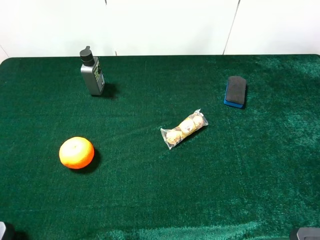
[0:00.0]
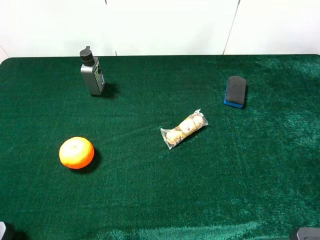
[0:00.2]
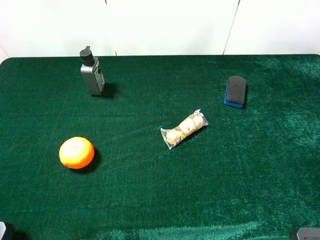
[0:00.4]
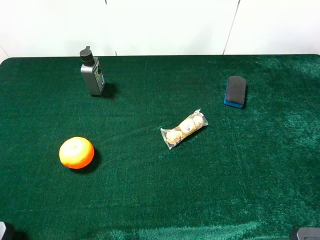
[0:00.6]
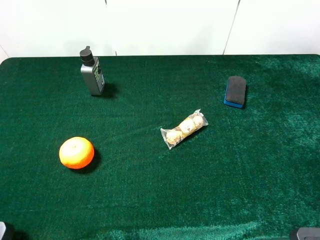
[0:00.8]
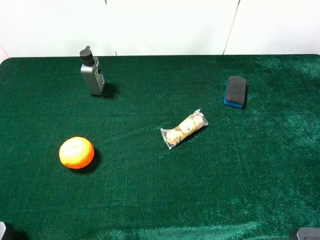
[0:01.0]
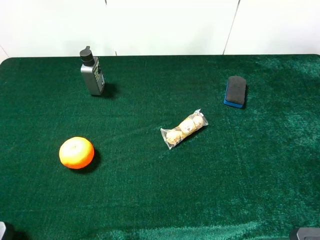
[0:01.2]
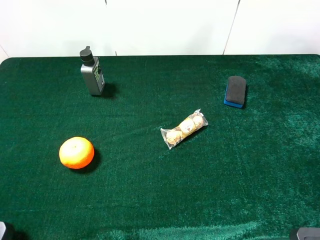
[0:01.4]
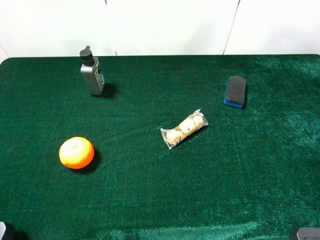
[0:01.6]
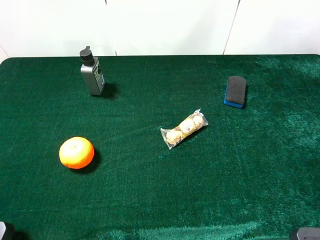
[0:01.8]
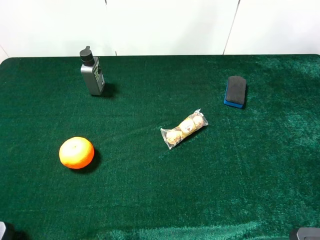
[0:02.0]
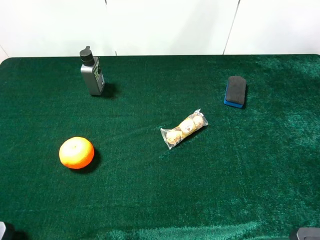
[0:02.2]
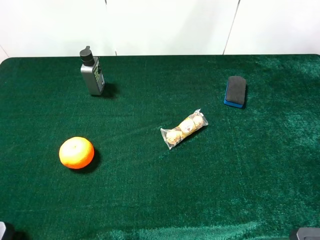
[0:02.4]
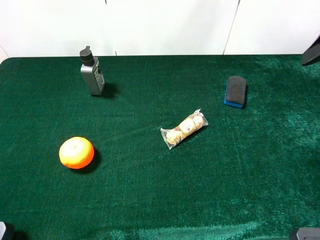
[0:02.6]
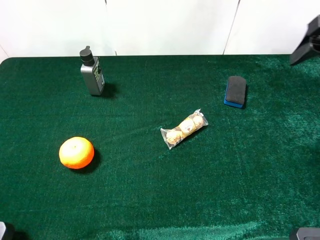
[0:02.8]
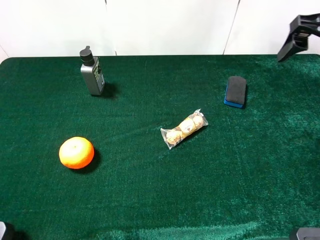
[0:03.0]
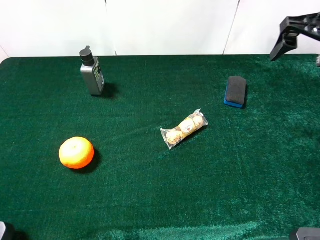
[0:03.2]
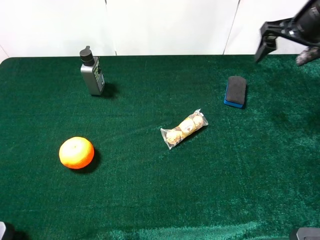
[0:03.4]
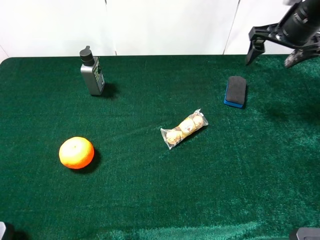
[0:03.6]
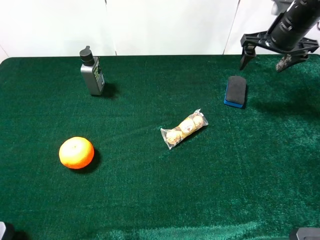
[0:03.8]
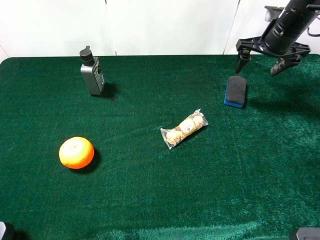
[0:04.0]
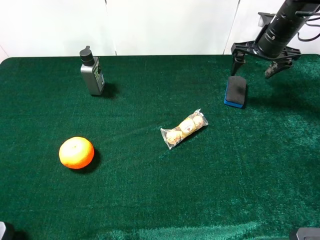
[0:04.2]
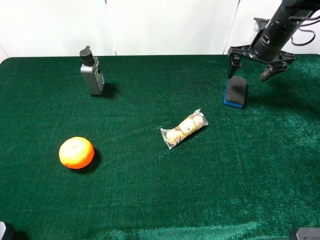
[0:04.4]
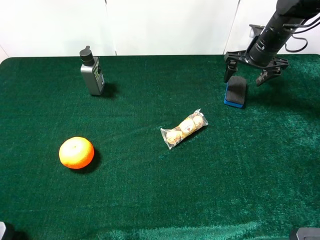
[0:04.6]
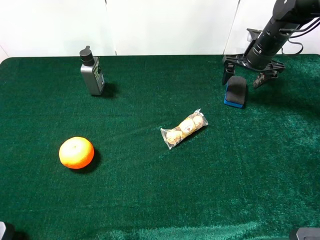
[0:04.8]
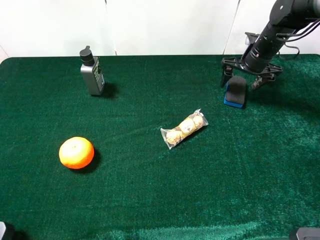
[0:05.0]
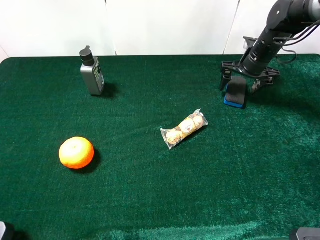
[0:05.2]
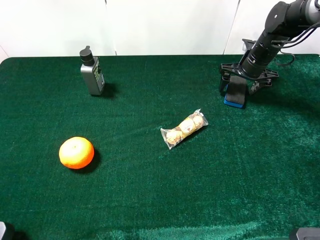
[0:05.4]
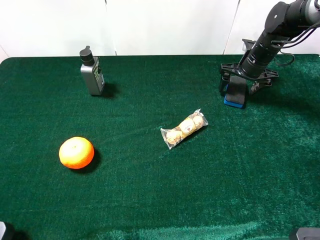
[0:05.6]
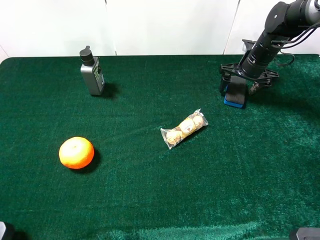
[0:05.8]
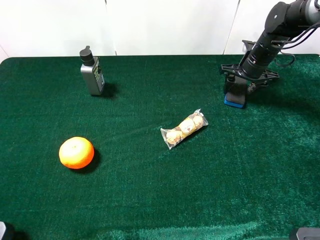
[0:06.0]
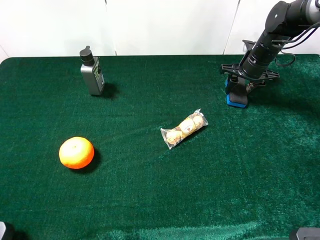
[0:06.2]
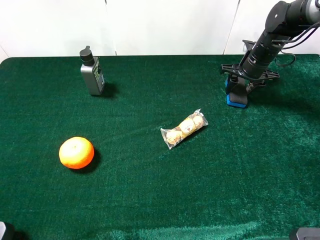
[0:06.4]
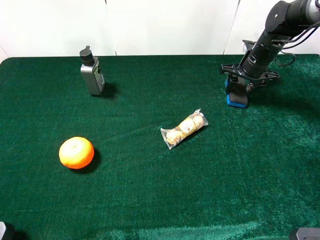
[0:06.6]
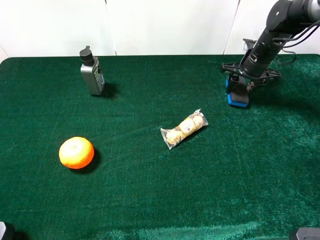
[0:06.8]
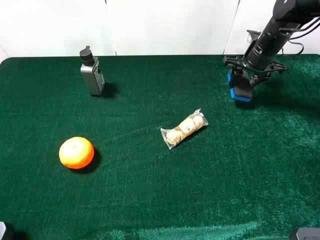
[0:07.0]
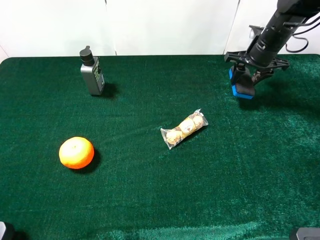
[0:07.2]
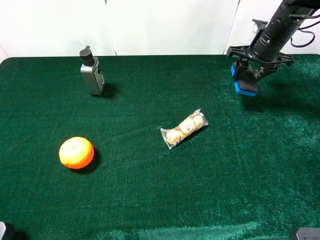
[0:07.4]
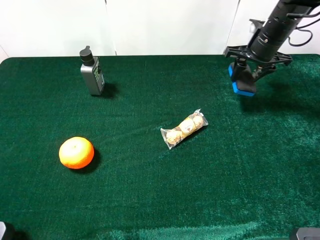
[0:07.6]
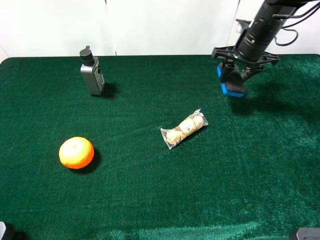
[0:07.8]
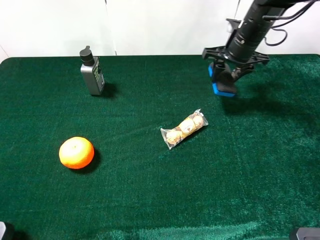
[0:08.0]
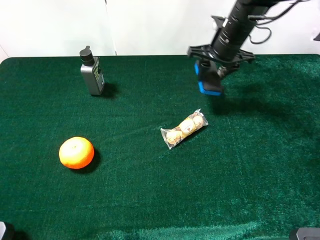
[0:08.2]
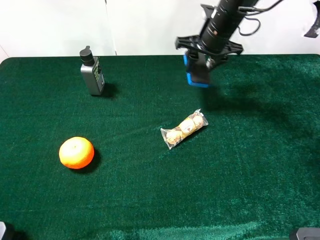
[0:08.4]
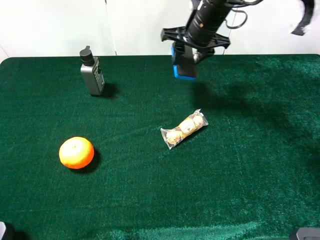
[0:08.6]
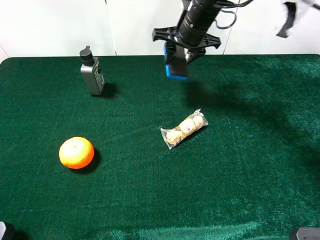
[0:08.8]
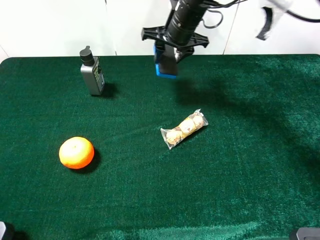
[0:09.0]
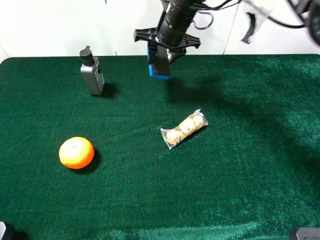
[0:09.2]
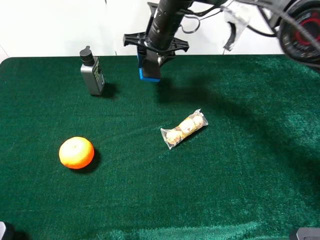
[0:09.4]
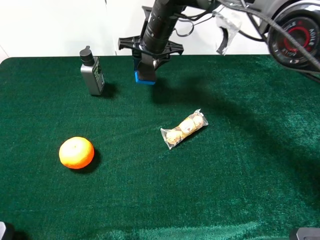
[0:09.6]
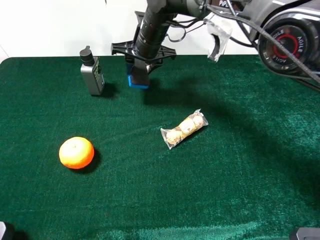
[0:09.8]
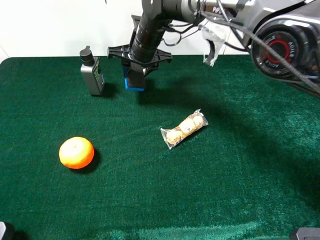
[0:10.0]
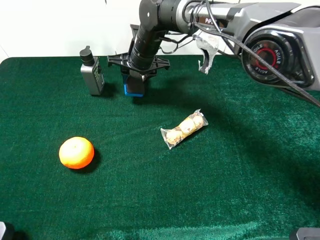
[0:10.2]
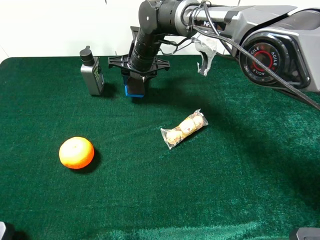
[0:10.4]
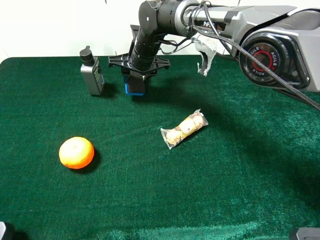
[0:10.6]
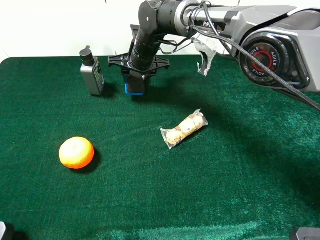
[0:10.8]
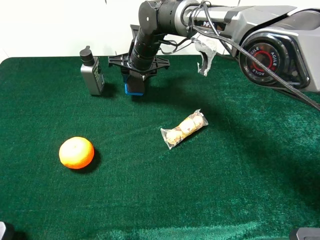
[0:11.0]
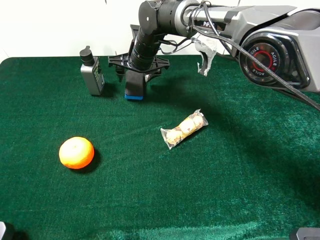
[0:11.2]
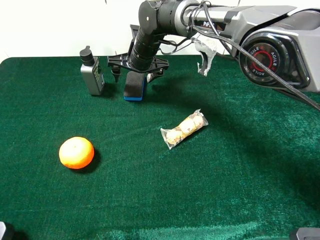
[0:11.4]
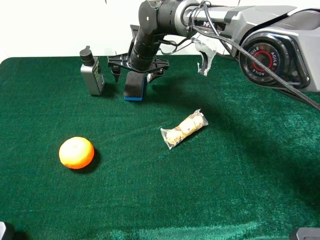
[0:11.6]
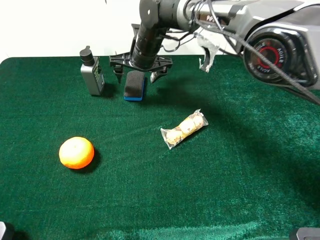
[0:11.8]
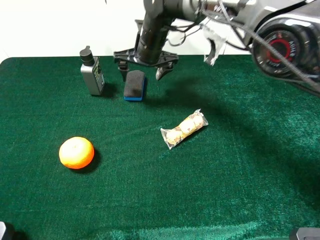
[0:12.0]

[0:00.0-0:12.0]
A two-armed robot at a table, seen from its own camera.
Task of the whole recording: the gripper move the object.
Step, 0:00.0 to 0:06.4: Grasp the blue blackboard earser with the right gripper.
Step, 0:06.6 to 0:12.0: Place the blue blackboard earser on the table with the right gripper.
0:01.6 to 0:03.0: The right gripper moves forward, some 25 cm.
0:03.0 to 0:04.4: The right gripper travels forward and downward by about 20 cm.
0:04.4 to 0:06.0: The right gripper moves downward, approximately 5 cm, and closes up.
0:06.0 to 0:07.6: The right gripper goes approximately 5 cm upward, and closes up.
0:07.6 to 0:09.0: The right gripper travels to the left by some 20 cm.
0:09.0 to 0:10.4: The right gripper travels to the left and downward by approximately 10 cm.
0:10.4 to 0:12.0: The right gripper opens up.

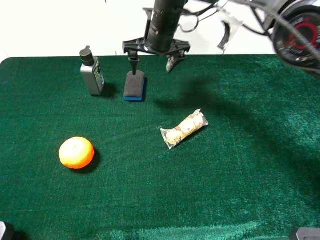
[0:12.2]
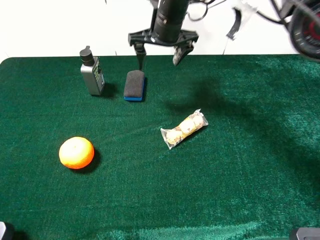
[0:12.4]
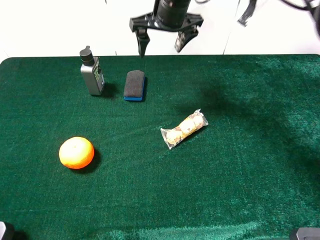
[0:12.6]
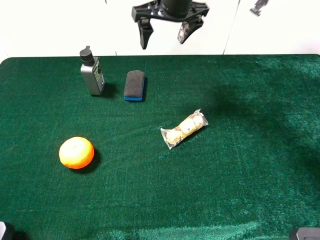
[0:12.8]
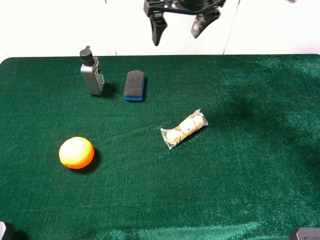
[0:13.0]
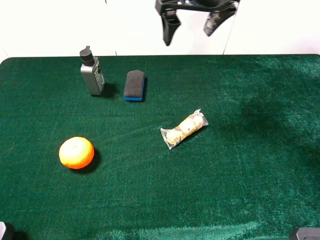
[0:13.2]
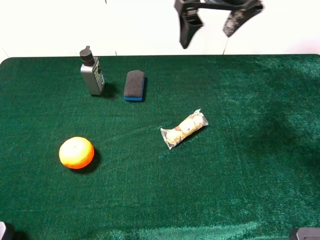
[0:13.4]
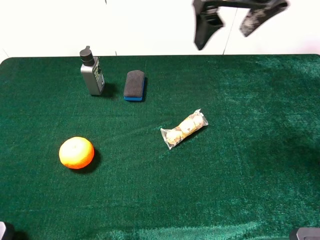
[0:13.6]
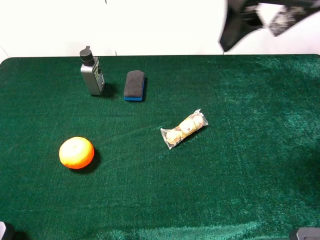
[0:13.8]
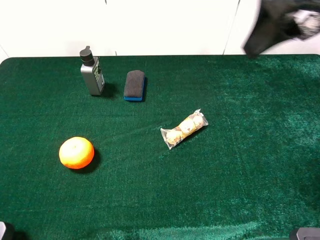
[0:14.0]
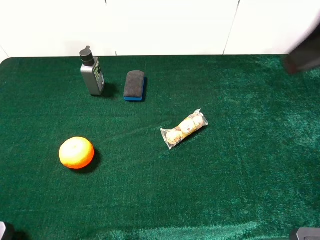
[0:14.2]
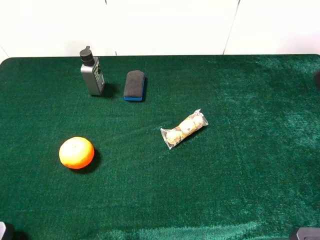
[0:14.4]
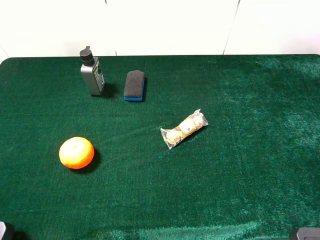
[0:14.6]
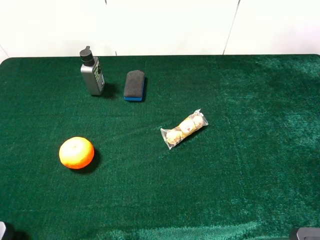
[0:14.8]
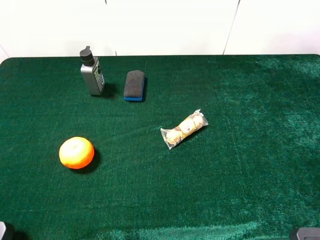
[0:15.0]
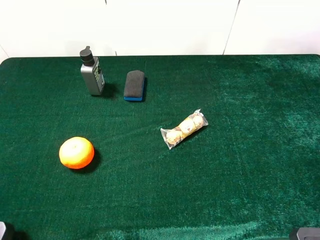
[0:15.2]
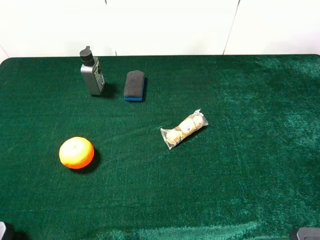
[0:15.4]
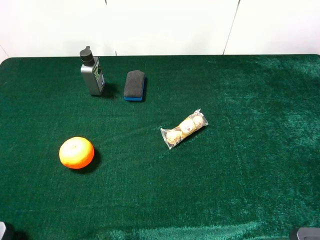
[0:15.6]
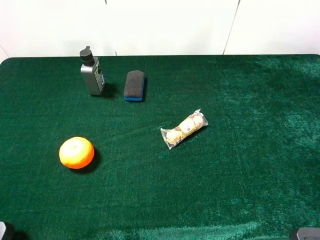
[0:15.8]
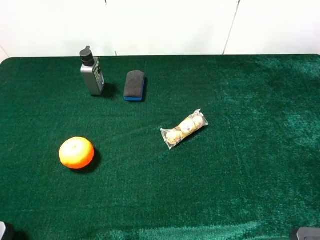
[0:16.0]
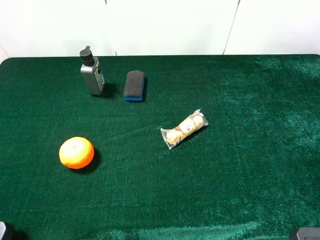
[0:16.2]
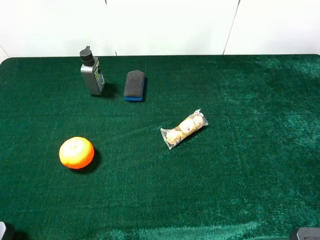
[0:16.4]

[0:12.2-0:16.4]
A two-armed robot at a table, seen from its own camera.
Task of the whole recording: the gripper move the object.
0:12.2 to 0:13.6: The right gripper is displaced upward, backward and to the right by roughly 25 cm.
0:13.6 to 0:15.0: The right gripper shifts approximately 30 cm backward and to the right.

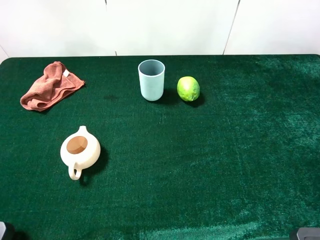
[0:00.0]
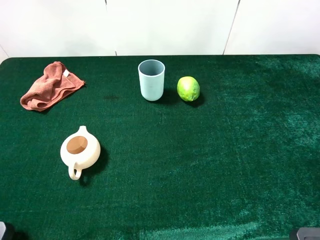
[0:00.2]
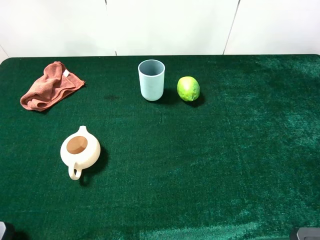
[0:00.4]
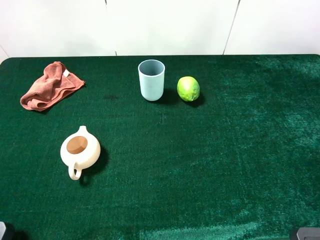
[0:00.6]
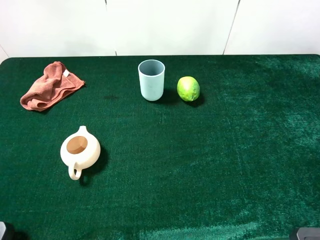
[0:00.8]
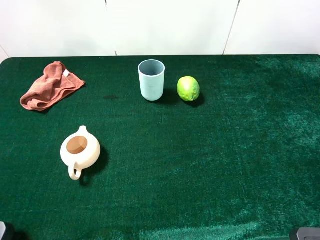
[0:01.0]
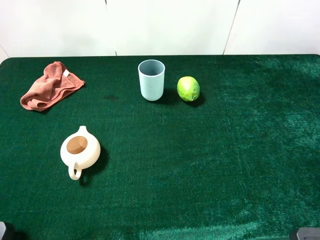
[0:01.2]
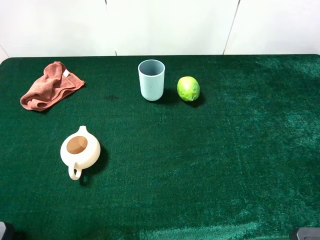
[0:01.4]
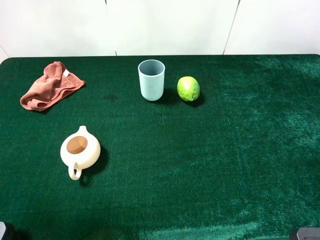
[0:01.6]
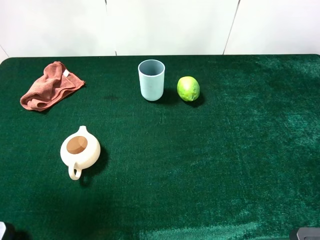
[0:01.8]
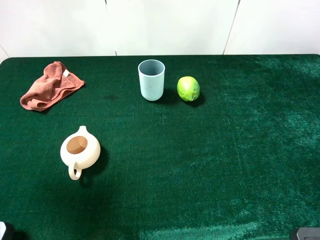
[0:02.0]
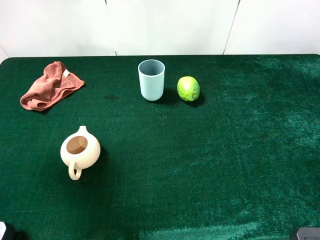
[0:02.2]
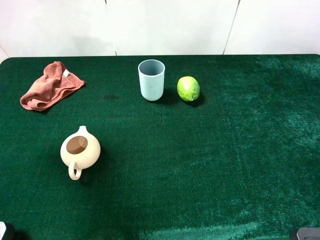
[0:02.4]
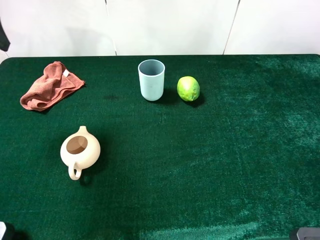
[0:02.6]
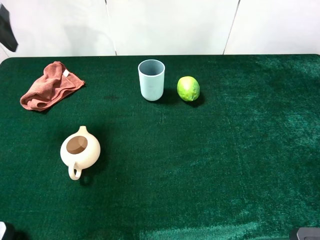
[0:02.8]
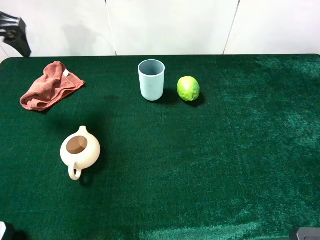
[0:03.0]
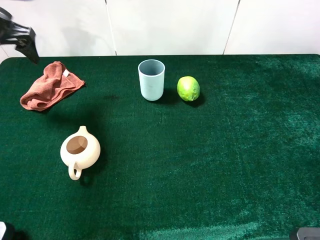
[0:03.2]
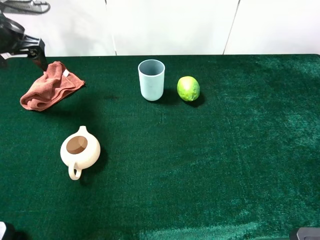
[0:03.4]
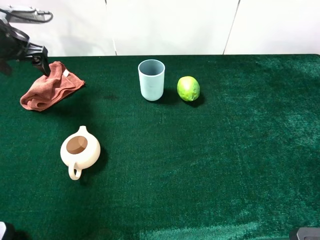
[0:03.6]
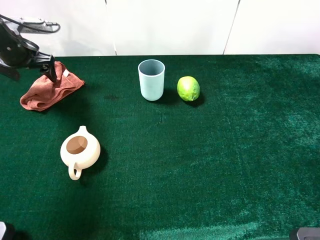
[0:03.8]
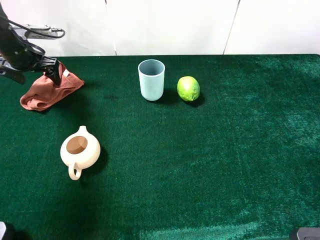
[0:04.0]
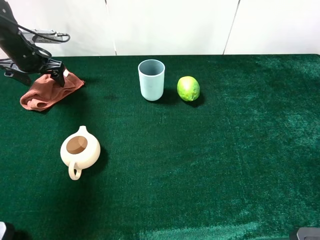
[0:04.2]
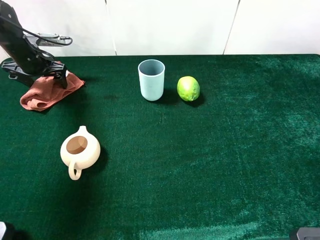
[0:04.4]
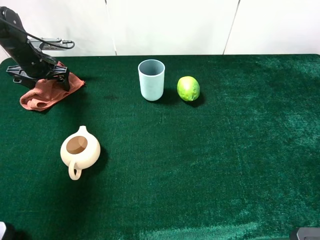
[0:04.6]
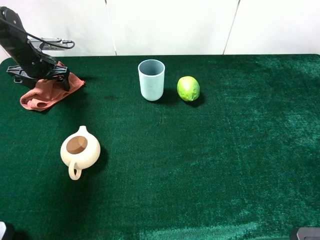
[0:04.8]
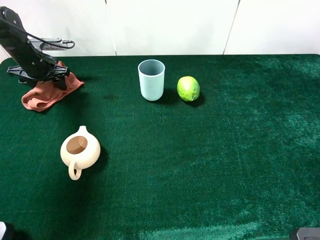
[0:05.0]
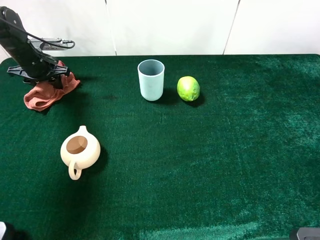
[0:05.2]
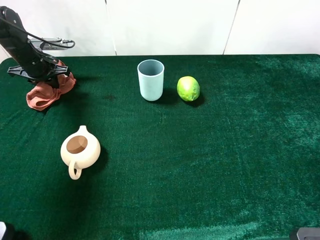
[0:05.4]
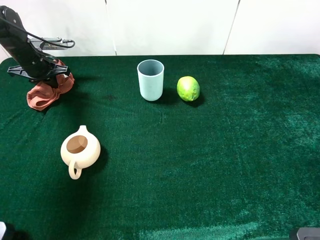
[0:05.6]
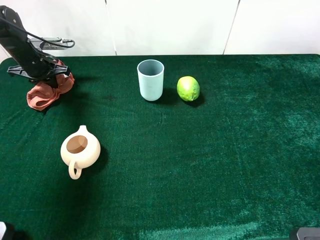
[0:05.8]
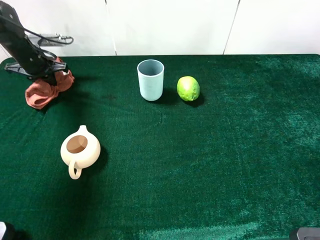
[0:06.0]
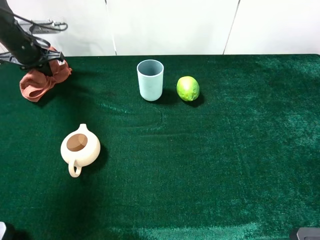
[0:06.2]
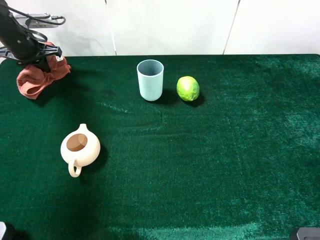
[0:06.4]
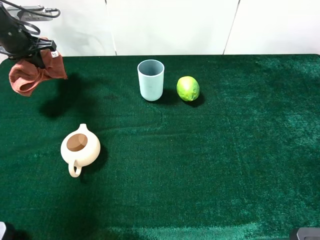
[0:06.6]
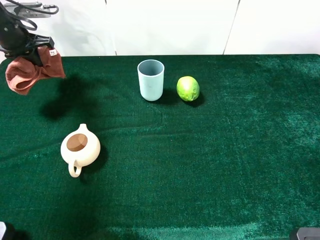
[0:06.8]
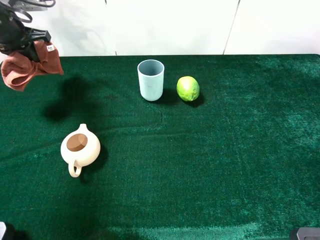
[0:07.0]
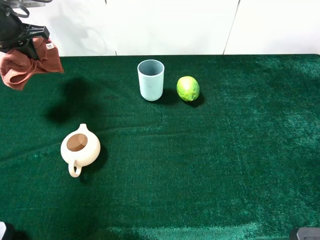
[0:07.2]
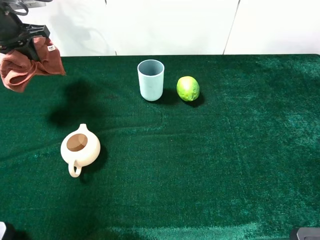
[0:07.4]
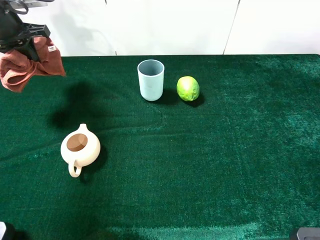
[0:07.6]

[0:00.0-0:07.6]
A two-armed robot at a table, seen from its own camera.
Task of the whole recording: the gripper move the object.
Step, 0:00.0 to 0:05.6: Grasp the brown towel with the left gripper.
0:00.0 to 0:01.6: The left gripper travels forward and upward by about 10 cm.
0:01.6 to 0:03.0: The left gripper heads forward, covering roughly 25 cm.
0:03.0 to 0:04.6: The left gripper shifts roughly 20 cm downward and forward.
0:04.6 to 0:06.0: The left gripper closes its fingers.
0:06.0 to 0:07.6: The left gripper heads upward, covering approximately 10 cm.
